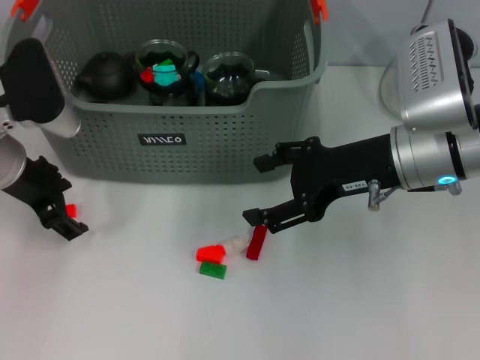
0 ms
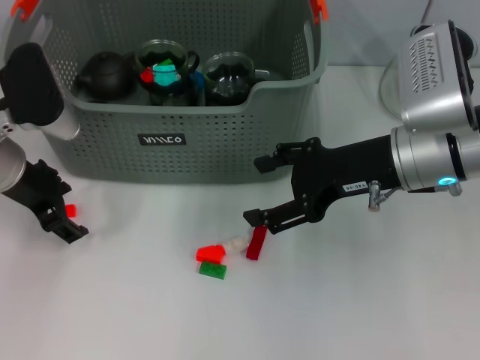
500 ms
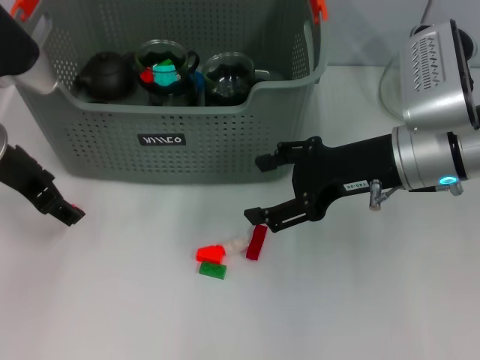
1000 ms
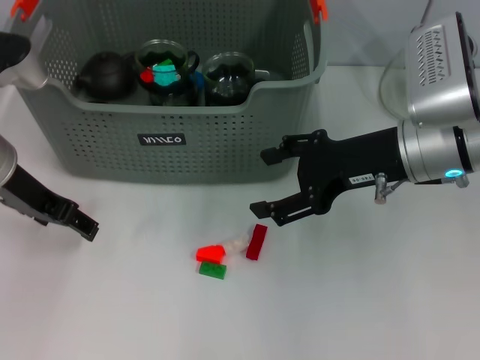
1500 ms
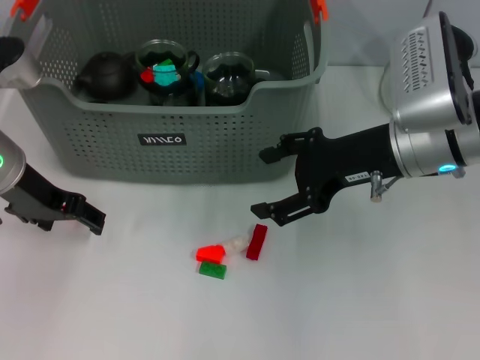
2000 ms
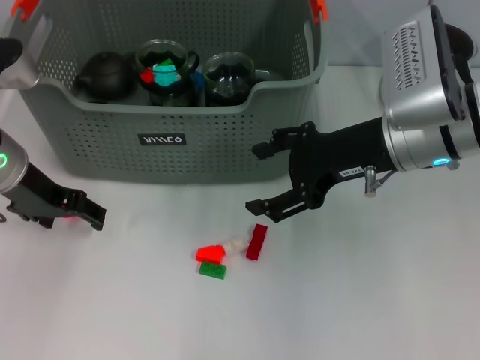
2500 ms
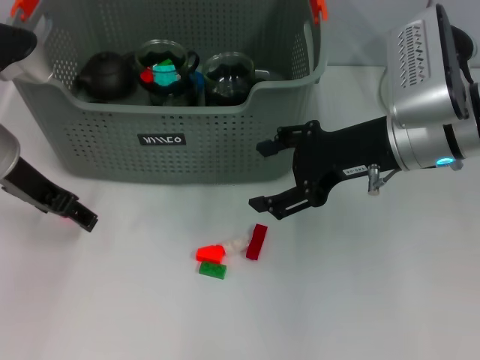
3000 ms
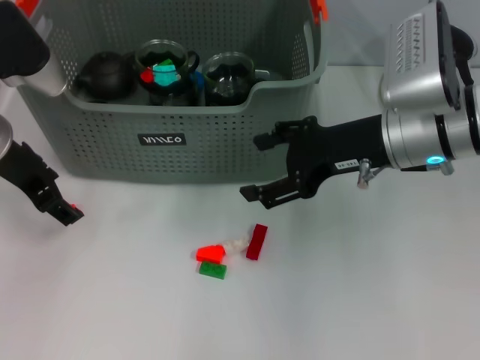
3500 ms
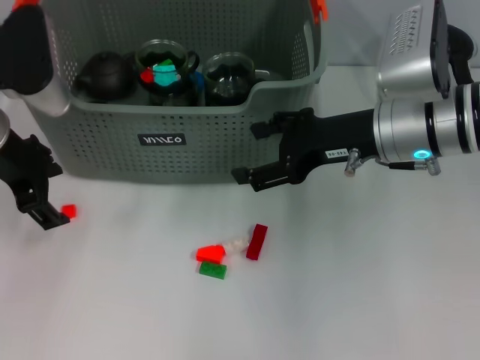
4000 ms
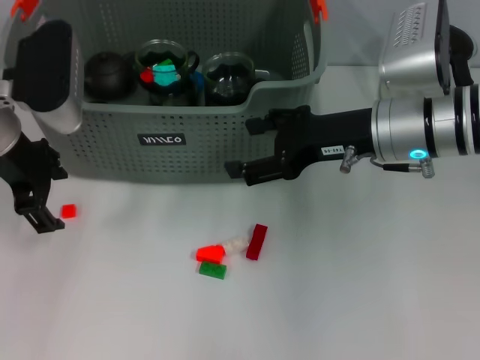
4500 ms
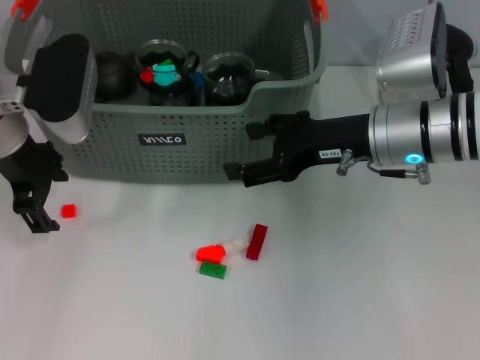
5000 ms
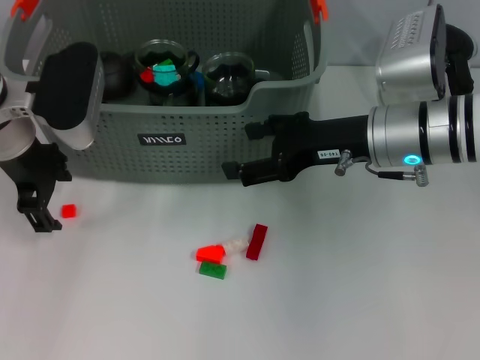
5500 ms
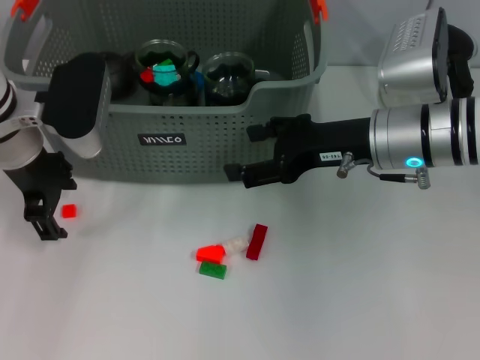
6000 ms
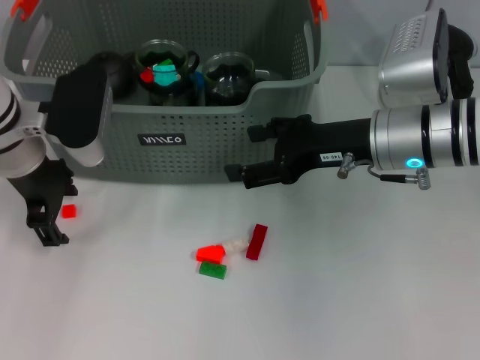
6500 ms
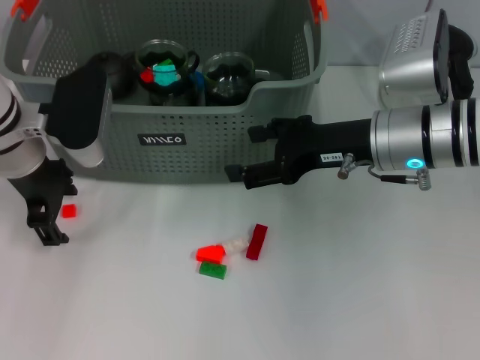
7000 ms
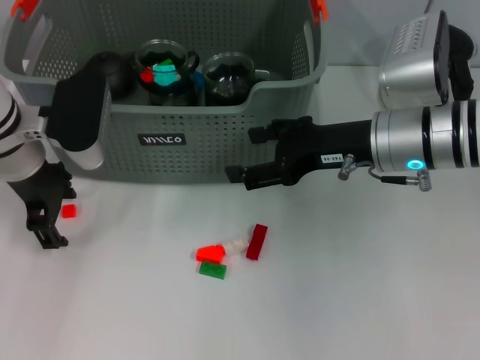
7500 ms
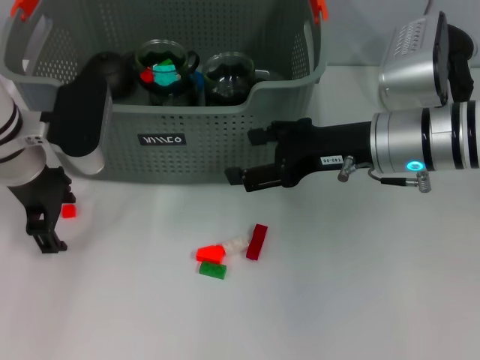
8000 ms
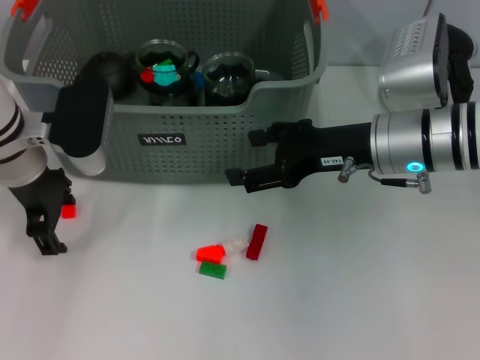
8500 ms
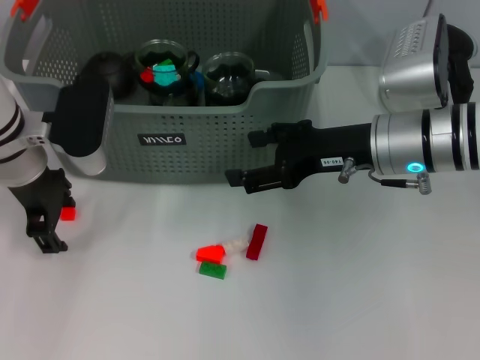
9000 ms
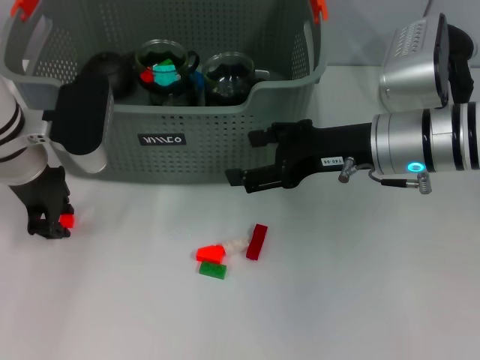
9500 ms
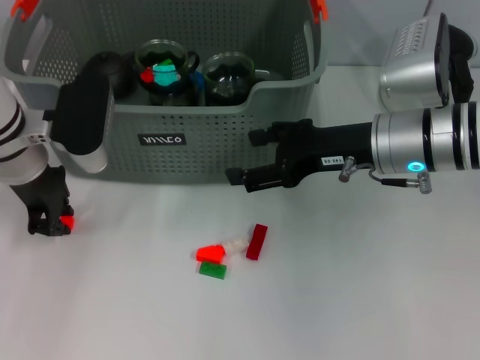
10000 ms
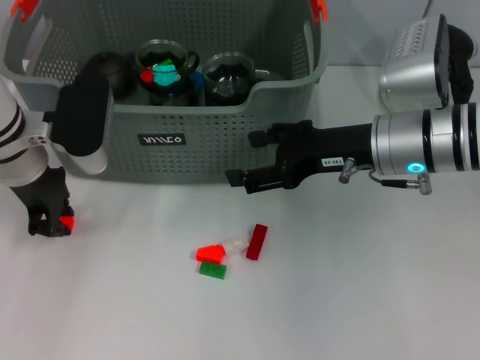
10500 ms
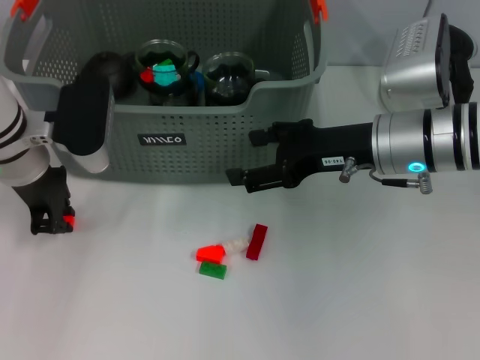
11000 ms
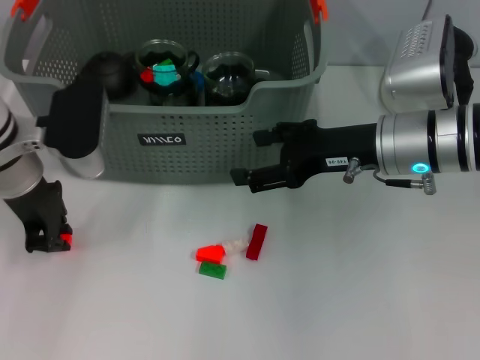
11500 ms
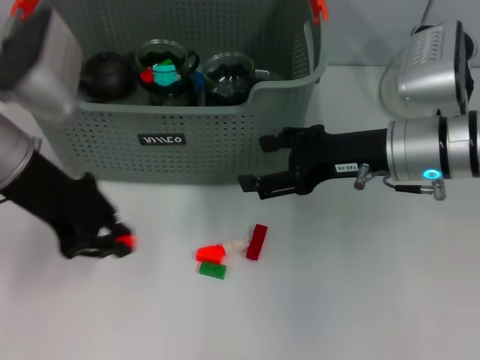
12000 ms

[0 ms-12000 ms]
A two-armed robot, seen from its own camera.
Task of the whole recording: pick up the teacup on the table and place it into the storage bin, pick up the block on the table and place it into the storage bin.
Step, 0 ms to 11000 ms: Grasp the orange block with left gripper.
4000 ms to 8000 ms: The grippers move only a little.
8000 ms to 10000 ms: The left gripper closes its fingers.
10000 ms to 12000 ms: The left gripper travels upward and backward by some 10 cm.

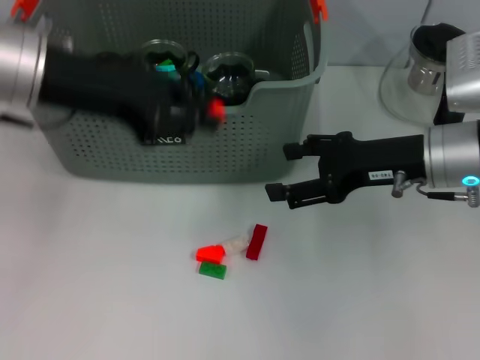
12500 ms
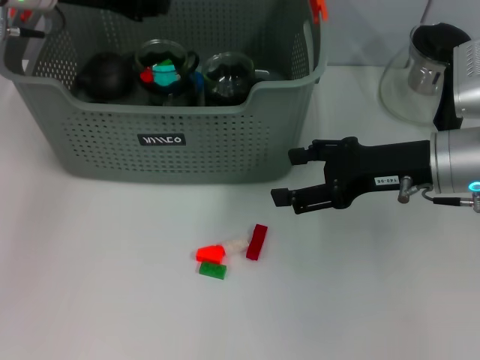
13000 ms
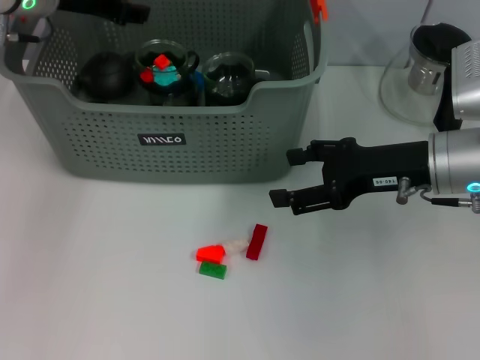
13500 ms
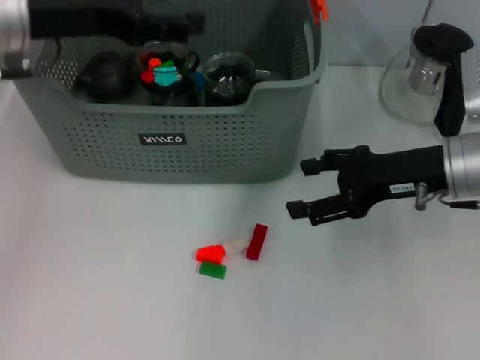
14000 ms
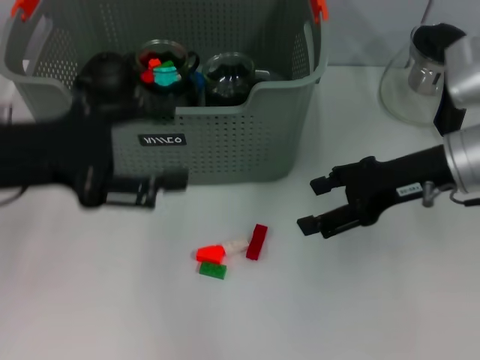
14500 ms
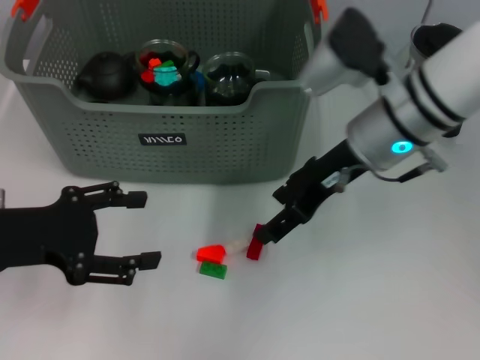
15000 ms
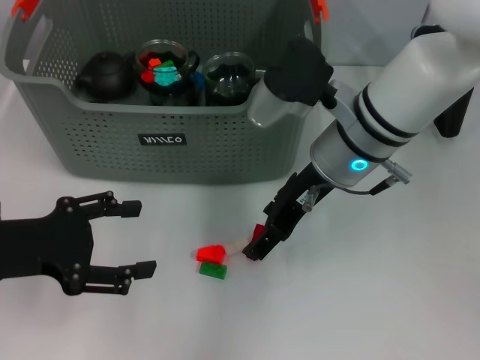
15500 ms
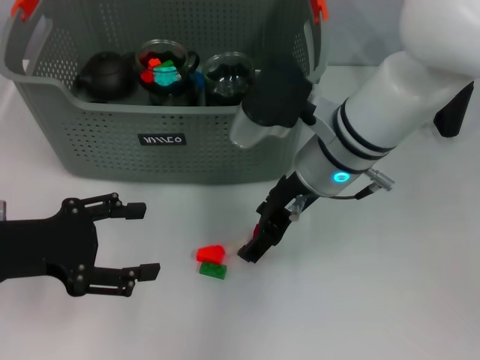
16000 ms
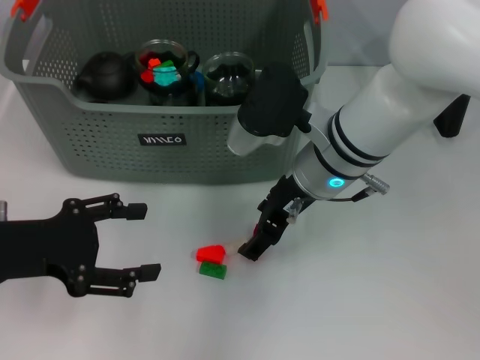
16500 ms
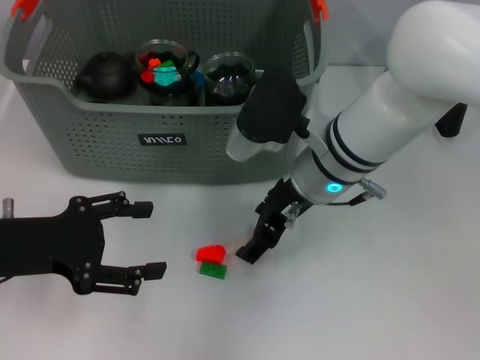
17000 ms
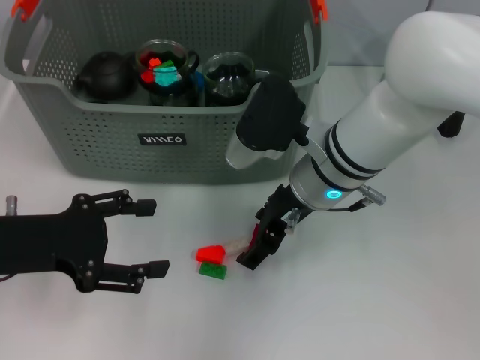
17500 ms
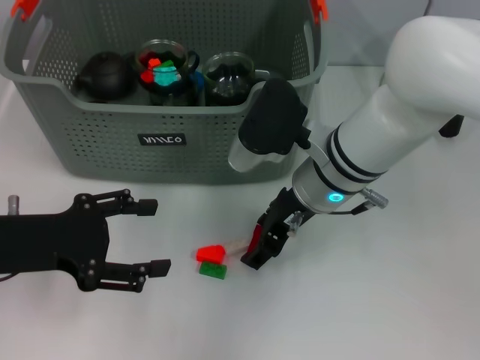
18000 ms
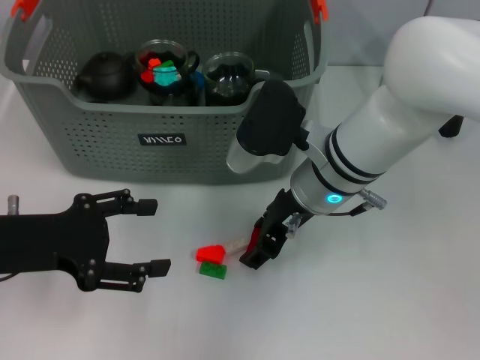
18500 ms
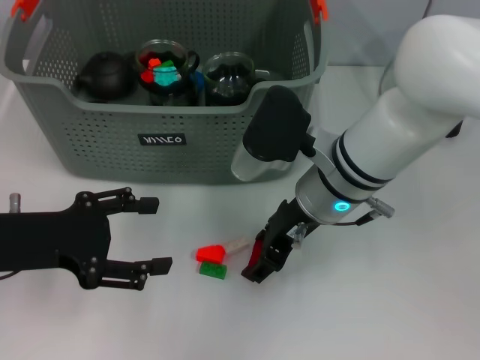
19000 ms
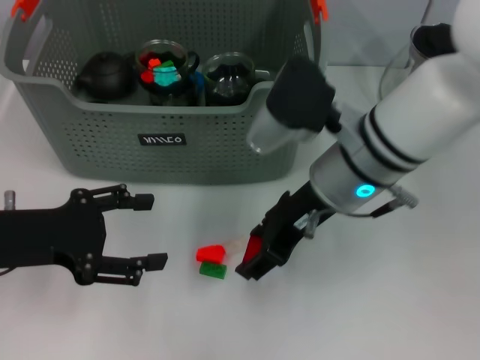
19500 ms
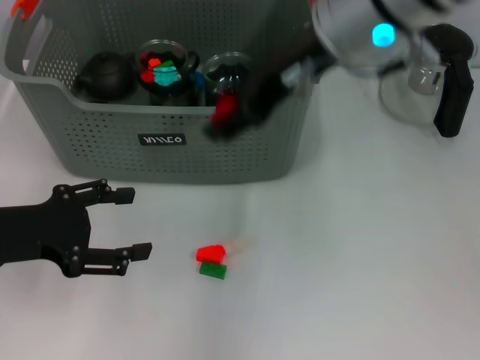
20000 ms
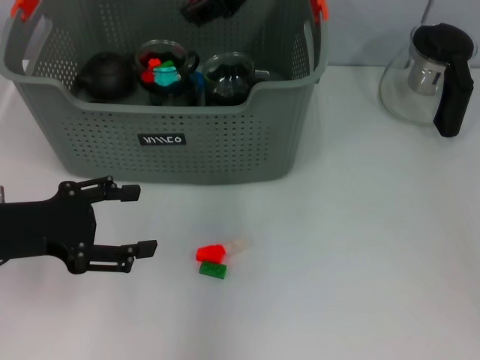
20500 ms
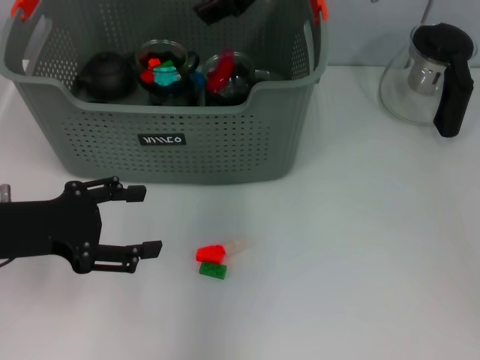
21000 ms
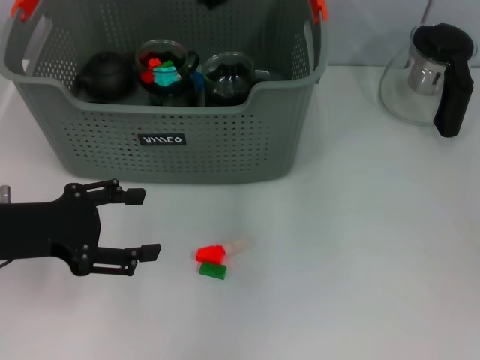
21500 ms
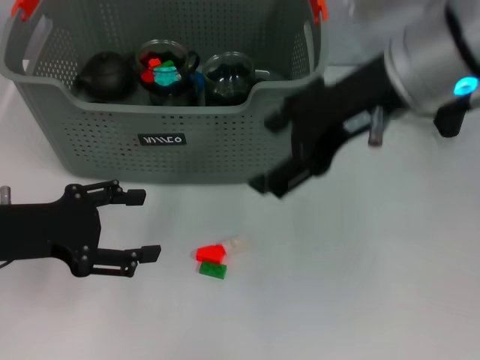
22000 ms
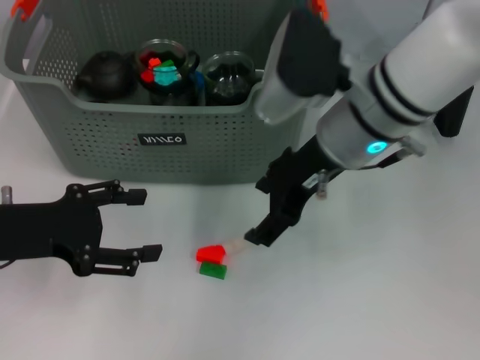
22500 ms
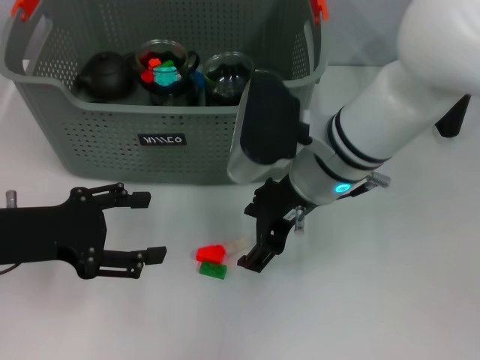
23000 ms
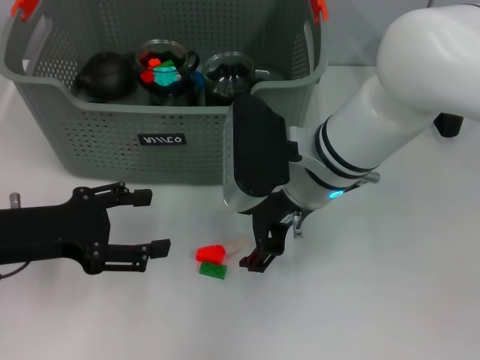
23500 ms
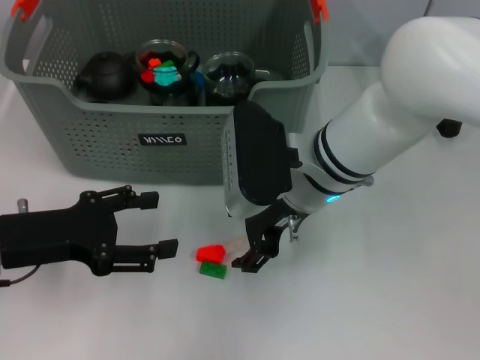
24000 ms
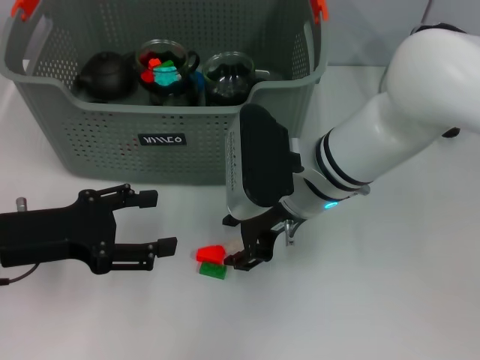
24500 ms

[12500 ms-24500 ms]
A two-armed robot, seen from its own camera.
Task of the whole recording: pick up the teacup on the table and place it into the storage bin, pick up the block on the table and place it into the storage bin.
Step, 14000 ms to 18500 ms: Grasp the red block with right gripper.
Step, 19000 ms to 21000 ms: Place the red block in the storage box with right gripper.
12500 ms to 14500 ms: The left gripper moves backward, downward and to the left, approximately 10 cm, and opens up.
14500 ms to 16500 ms: The right gripper travels to the left by about 15 cm. The left gripper moves downward, approximately 5 cm.
16500 ms to 18500 ms: The grippers move only a little.
18500 ms to 20500 ms: The right gripper shifts approximately 20 cm upward.
20500 ms to 22500 ms: The right gripper is displaced downward and backward by some 15 cm.
22500 ms to 24500 ms: The right gripper heads downward, covering about 5 cm.

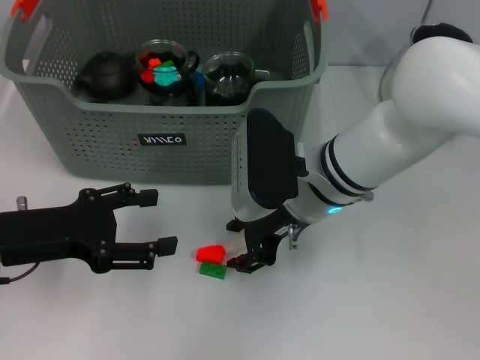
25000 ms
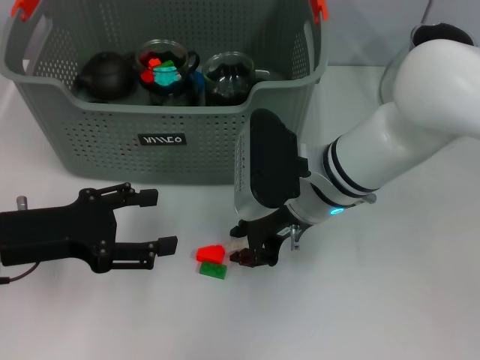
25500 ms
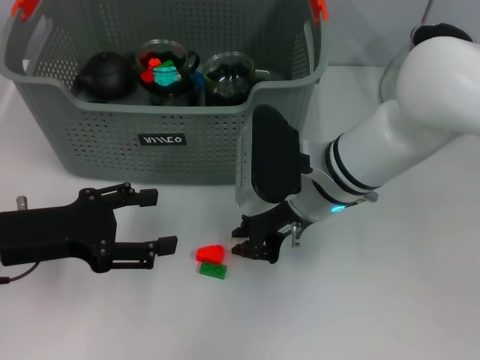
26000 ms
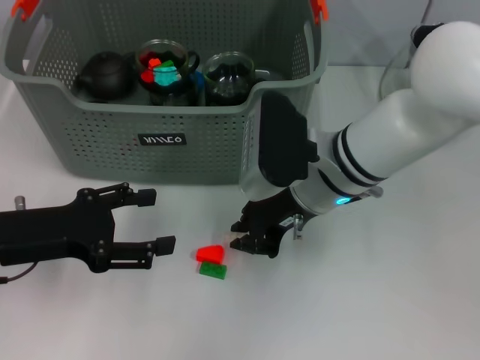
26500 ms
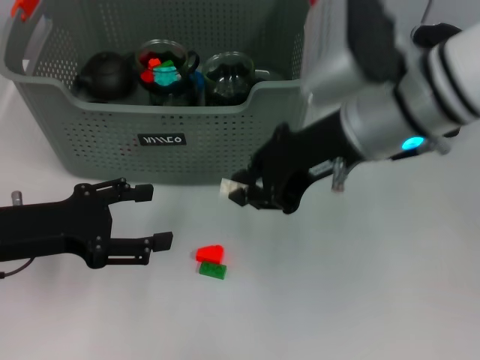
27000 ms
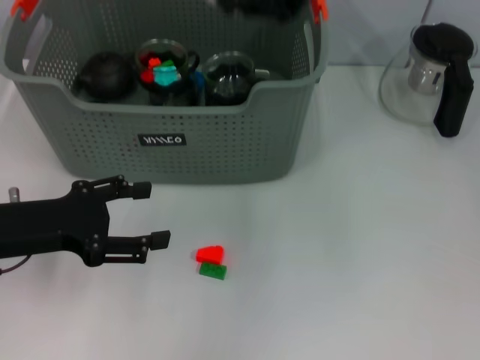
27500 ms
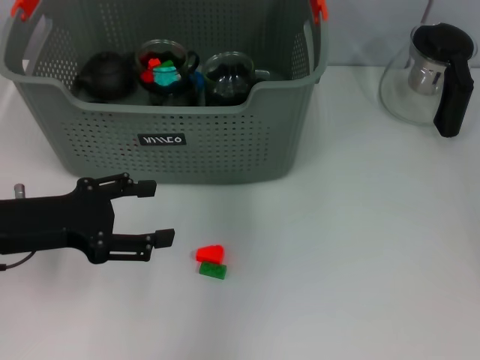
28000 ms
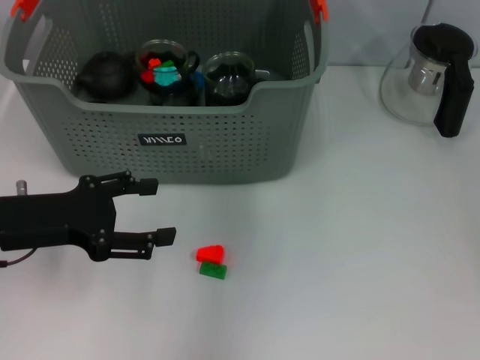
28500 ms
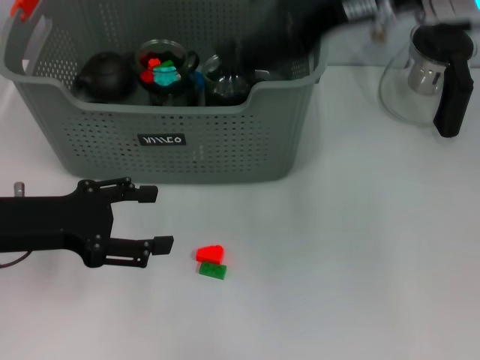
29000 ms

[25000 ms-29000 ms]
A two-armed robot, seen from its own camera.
Task of the whole recording: pick up the teacup on the table and place it into the storage bin, pick up the block on the table and place it into the storage bin.
Step, 26500 ms to 28000 ms: Place the white block in the storage box with right gripper.
25000 ms to 27000 ms: The right gripper is displaced upward by some 10 cm, and closes.
27000 ms to 29000 ms: The right gripper heads upward, covering about 10 cm, and opens.
